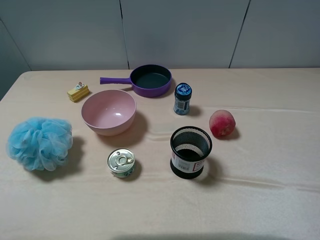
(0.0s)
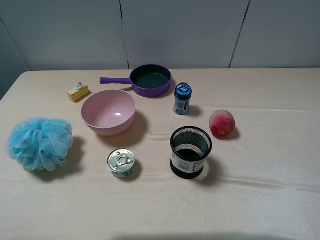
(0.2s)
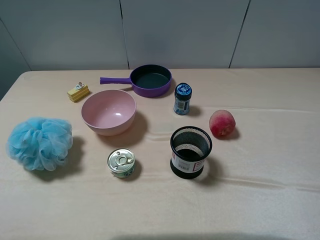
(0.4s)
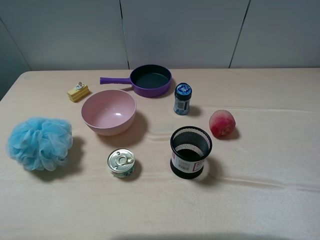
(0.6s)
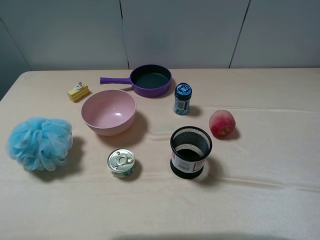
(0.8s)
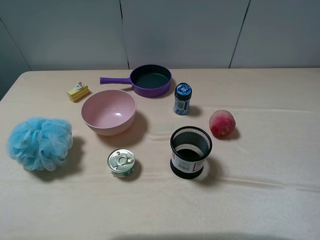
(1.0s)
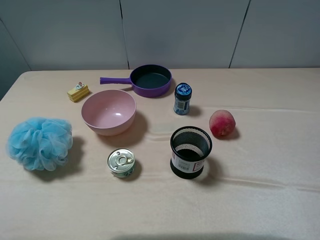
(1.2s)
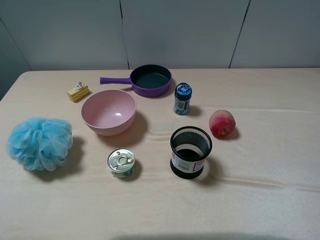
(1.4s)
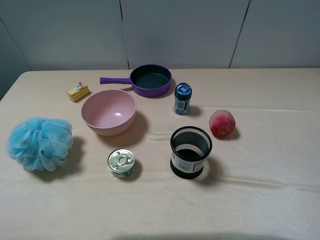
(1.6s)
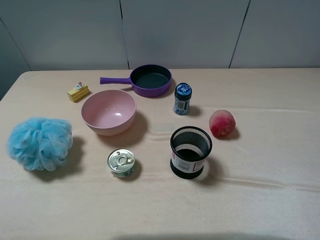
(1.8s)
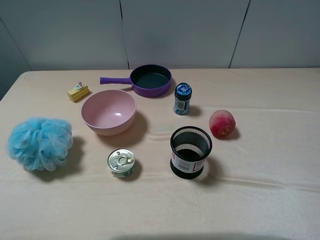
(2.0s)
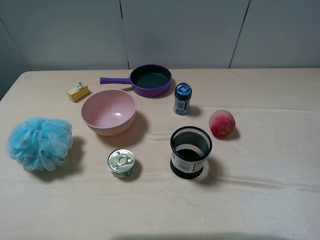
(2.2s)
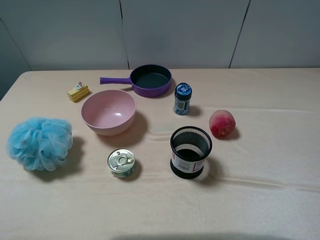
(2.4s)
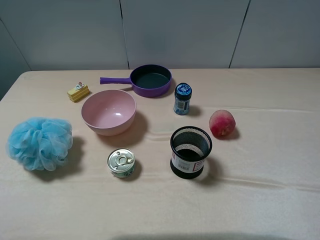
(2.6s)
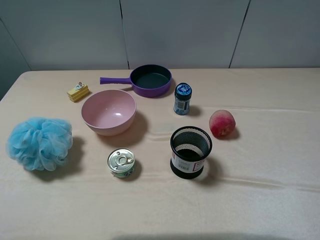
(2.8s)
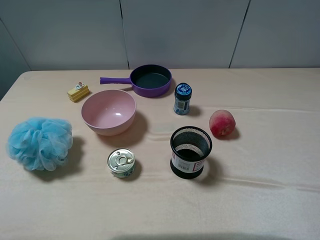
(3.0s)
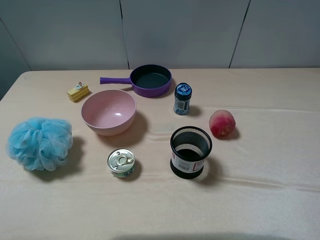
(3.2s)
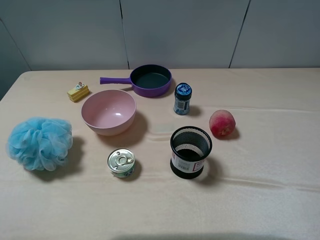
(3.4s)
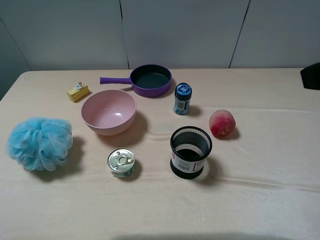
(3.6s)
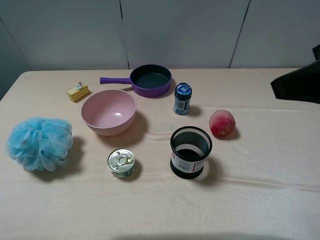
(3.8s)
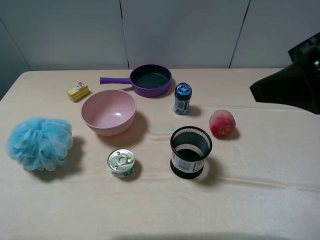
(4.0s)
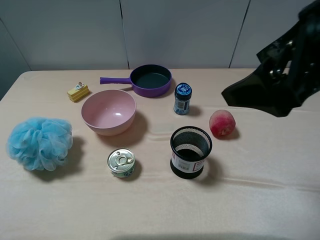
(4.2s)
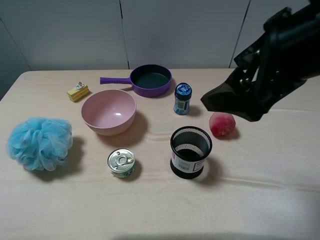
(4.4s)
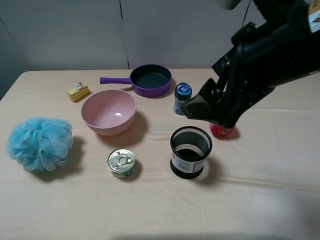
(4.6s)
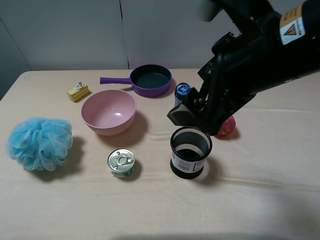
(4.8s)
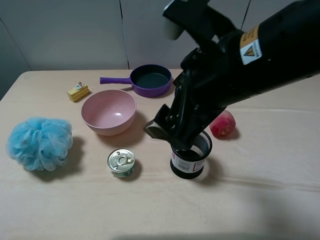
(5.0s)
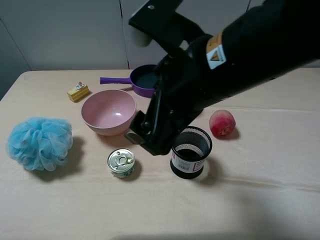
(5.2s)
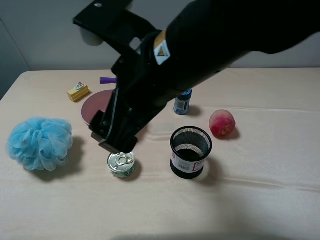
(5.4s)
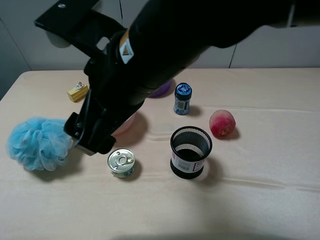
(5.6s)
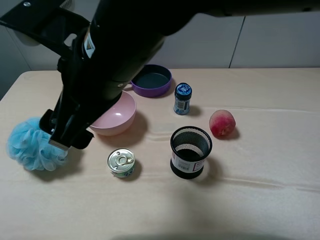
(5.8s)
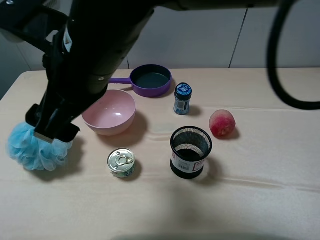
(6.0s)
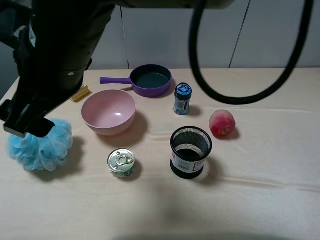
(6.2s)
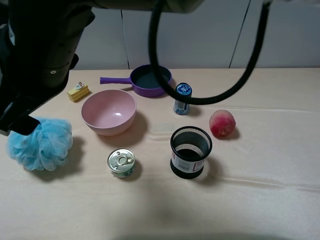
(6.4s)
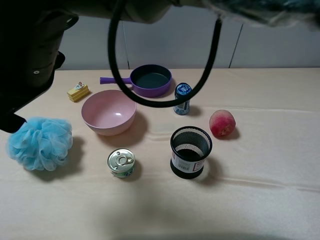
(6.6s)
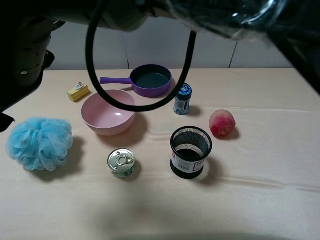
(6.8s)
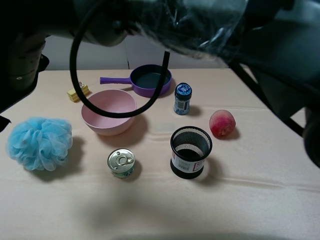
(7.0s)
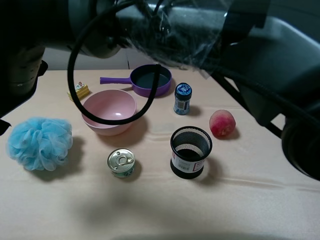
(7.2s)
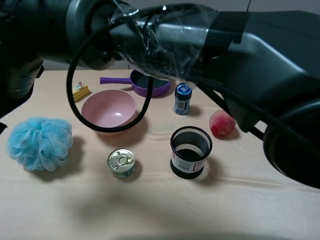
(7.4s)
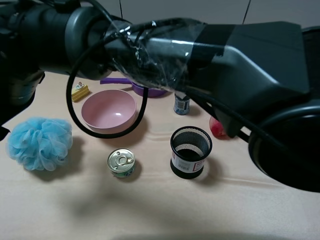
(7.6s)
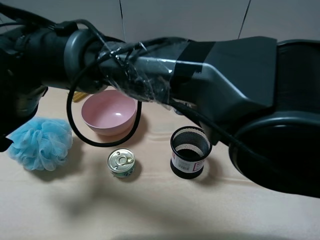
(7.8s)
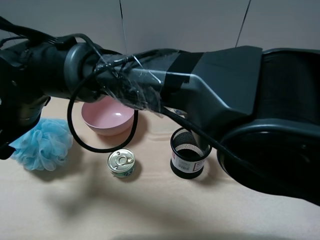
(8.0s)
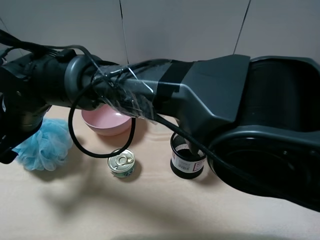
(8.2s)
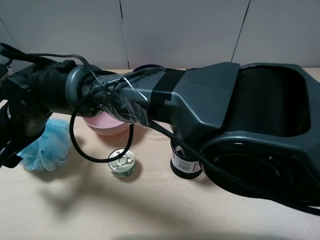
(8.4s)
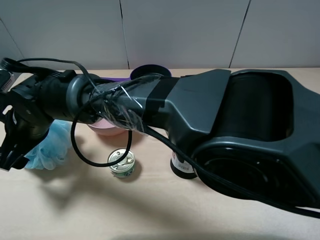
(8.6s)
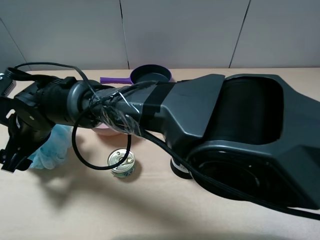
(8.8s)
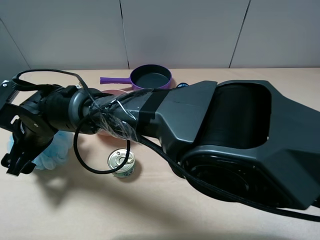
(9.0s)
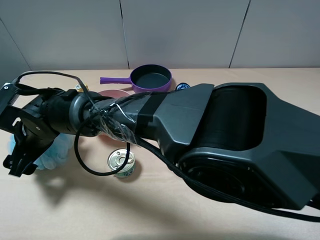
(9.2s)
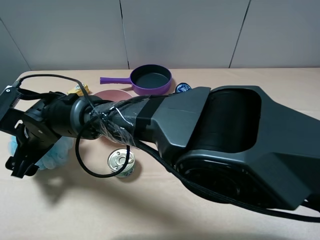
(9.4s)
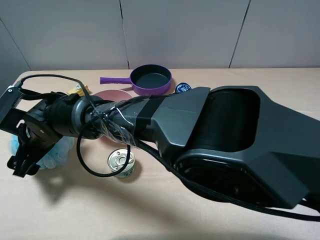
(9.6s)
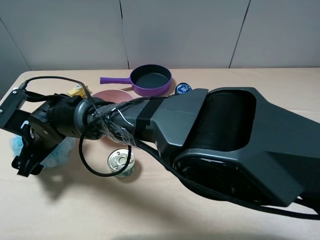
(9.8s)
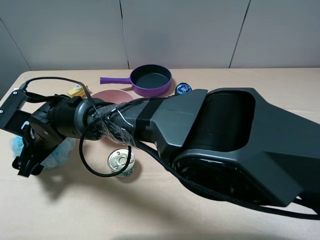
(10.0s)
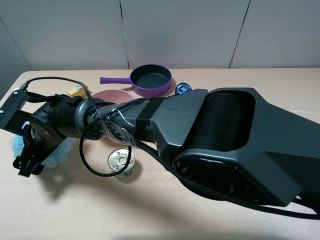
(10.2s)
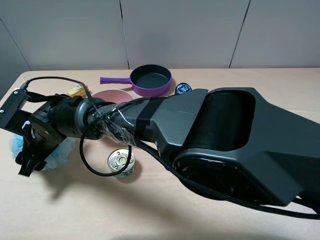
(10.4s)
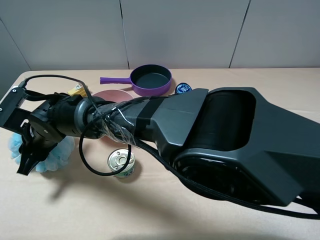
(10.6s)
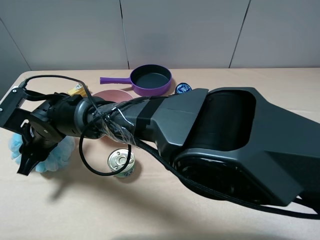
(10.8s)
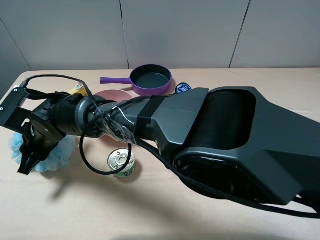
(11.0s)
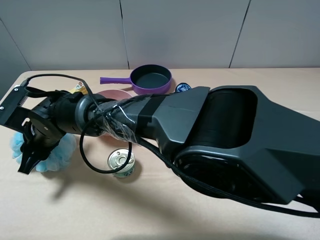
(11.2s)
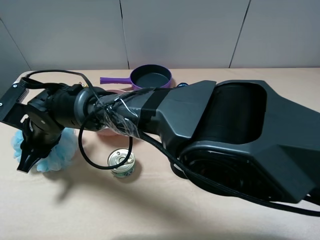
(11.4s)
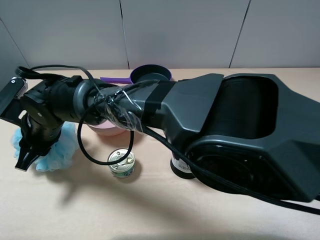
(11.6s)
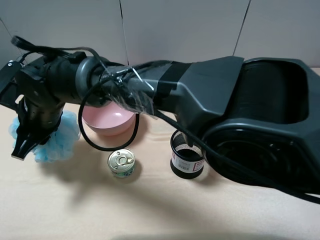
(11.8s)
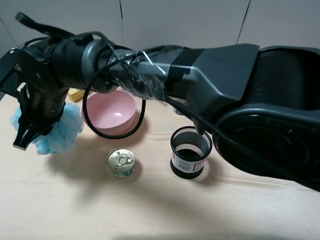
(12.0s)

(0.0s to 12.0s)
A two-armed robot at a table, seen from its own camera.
Task of the whole recording: pick up an item with a gripper and place it in a random container on the table.
Step, 0.0s - 10.8s: Grasp the shower sphere with the right gripper.
0.0s - 1.6s: The two grippers keep their place.
3.0s - 4.4s: The right gripper goes roughly 15 cm to the left and forward.
4.4s - 6.0s: The right gripper moves to the left, approximately 25 cm.
6.0s - 7.6s: The right gripper heads to the left and downward, covering some 15 cm.
7.6s - 9.0s: The right gripper travels downward by about 10 cm.
9.0s - 10.4s: The right gripper closes.
10.4s - 12.0s: The right gripper shifts some 10 cm upward, and closes up.

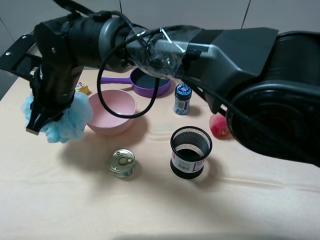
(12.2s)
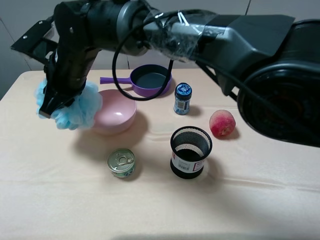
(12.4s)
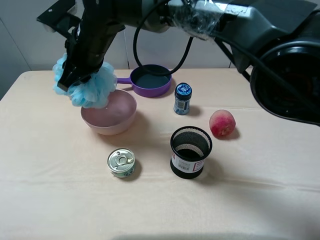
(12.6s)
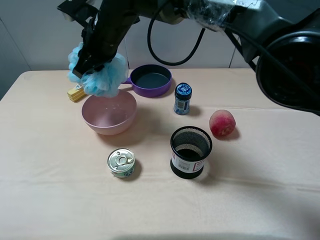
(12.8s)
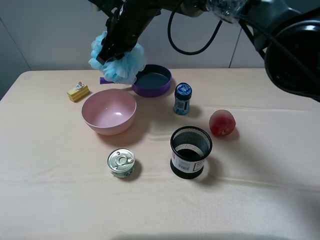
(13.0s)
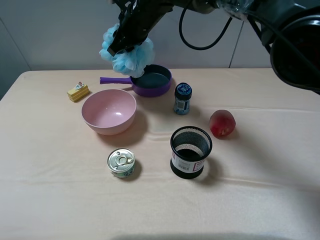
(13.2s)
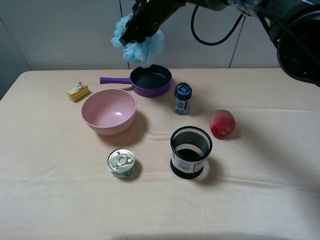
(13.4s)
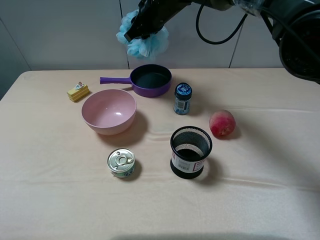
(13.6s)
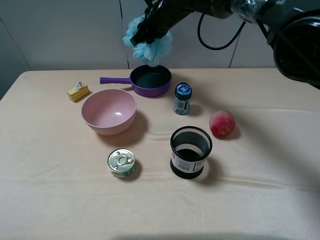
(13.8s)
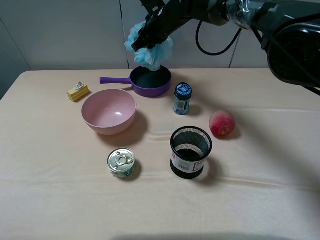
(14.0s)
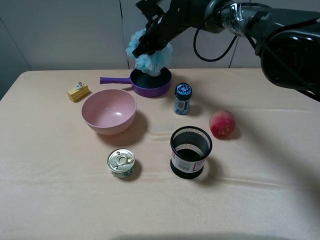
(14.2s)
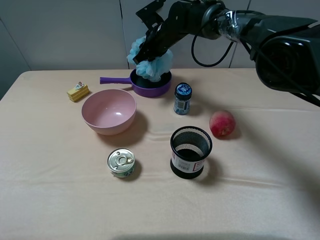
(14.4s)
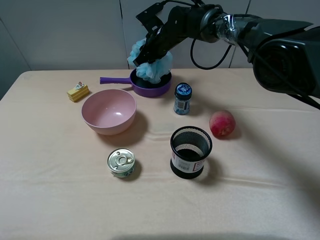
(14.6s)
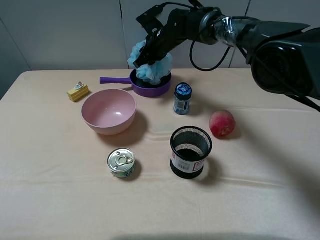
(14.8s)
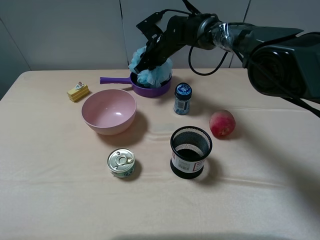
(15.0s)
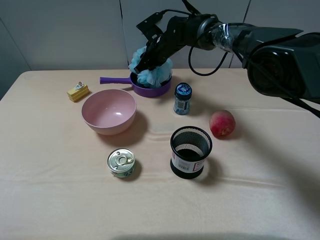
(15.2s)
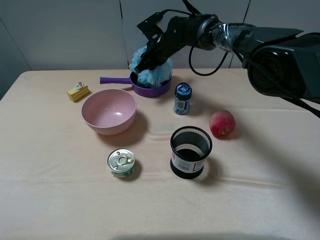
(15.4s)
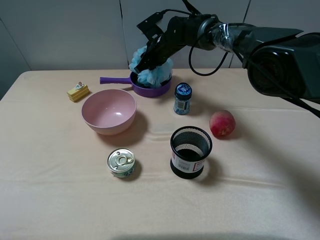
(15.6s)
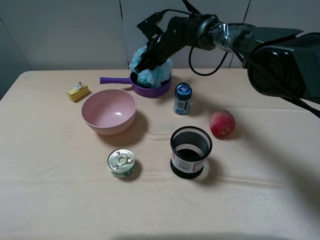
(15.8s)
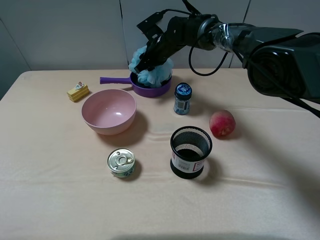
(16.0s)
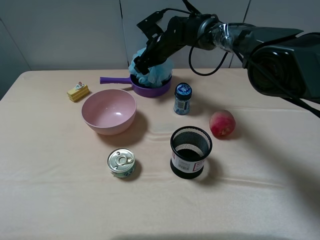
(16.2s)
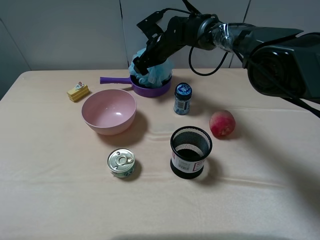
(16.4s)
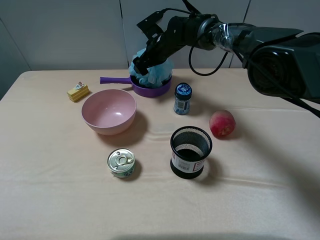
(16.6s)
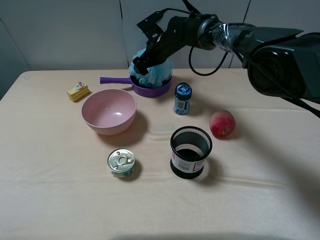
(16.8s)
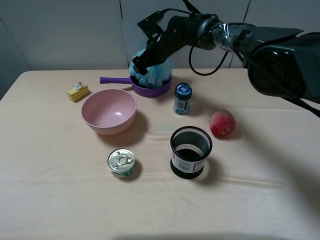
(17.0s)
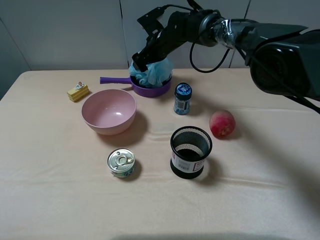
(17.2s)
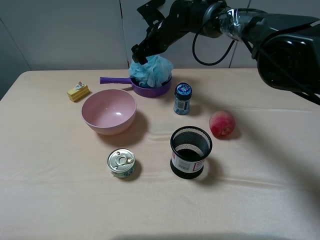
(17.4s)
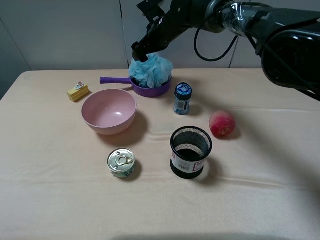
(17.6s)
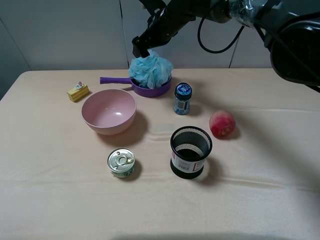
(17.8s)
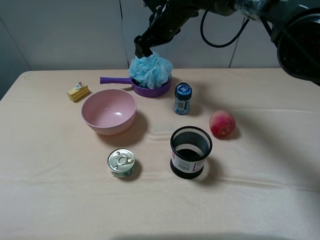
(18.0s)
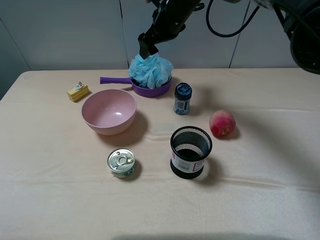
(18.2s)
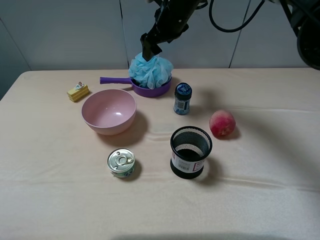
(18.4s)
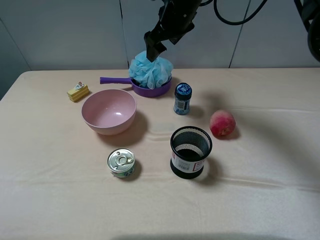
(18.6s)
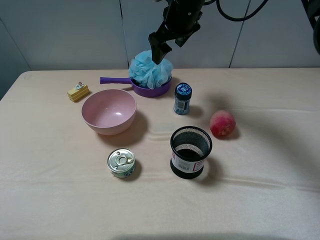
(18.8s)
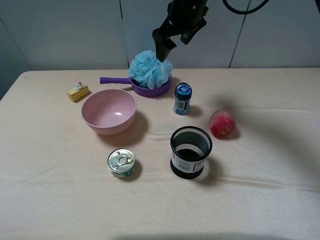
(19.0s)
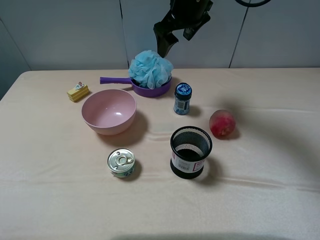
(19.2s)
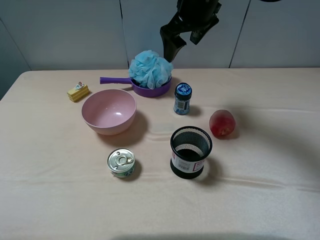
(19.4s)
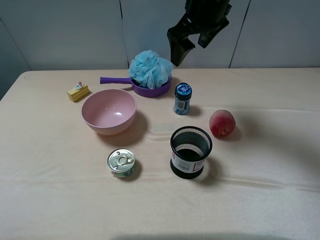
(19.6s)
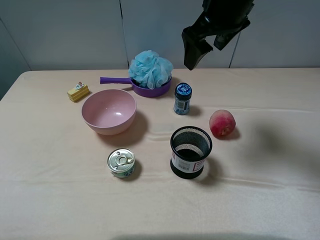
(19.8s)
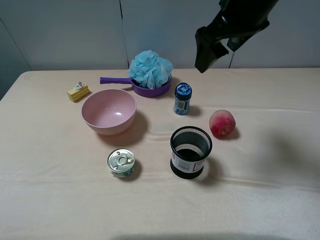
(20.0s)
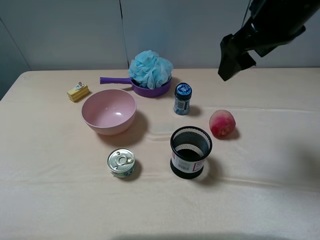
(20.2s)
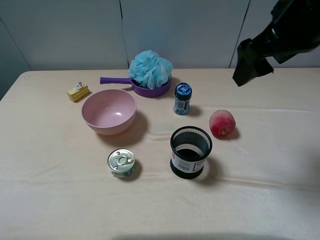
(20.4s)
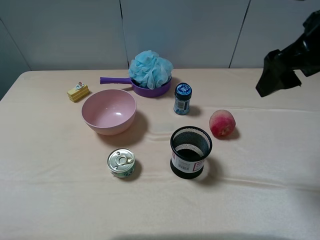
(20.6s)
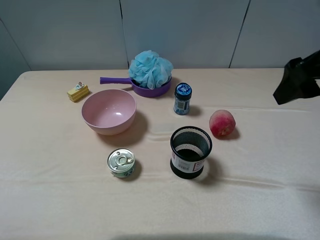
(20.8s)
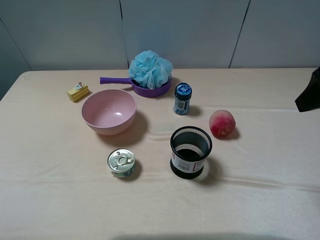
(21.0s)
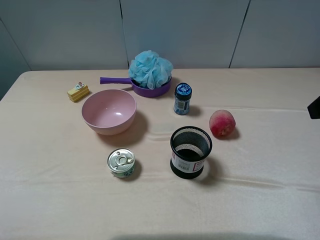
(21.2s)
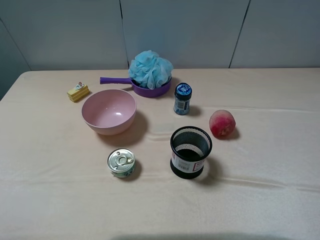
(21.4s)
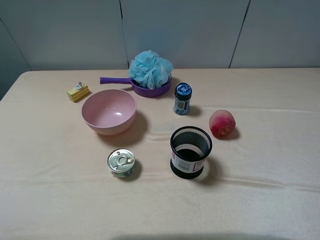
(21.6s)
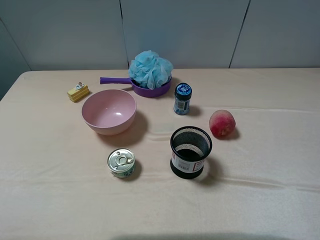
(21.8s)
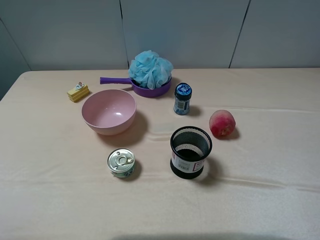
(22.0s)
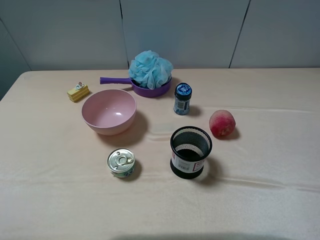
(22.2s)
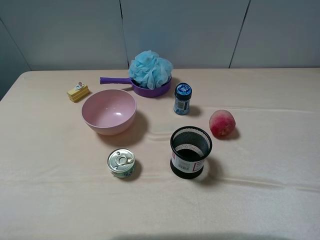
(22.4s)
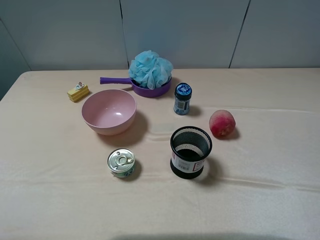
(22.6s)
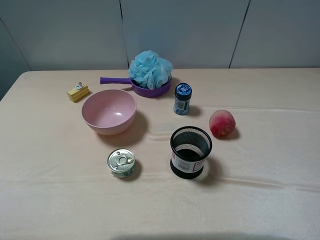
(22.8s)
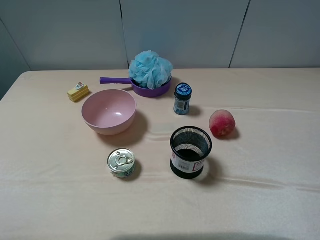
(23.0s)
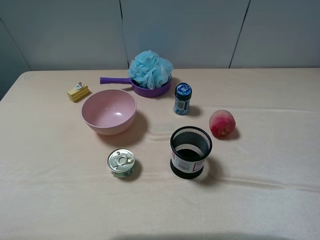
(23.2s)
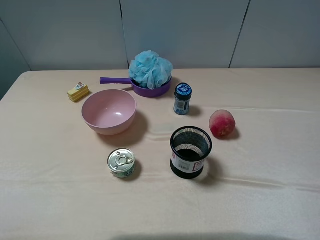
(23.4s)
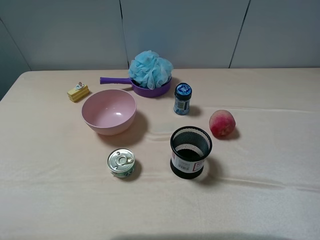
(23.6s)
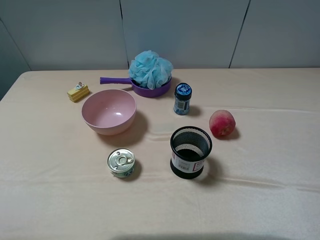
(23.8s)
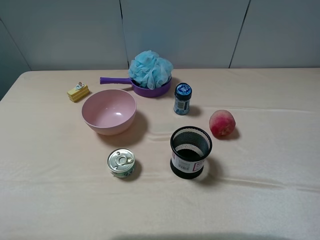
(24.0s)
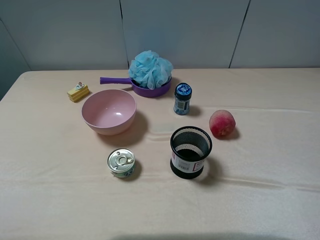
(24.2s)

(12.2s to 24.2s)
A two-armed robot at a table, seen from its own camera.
Task of the whole recording: pick up an item with a gripper and place it in a random container on the table.
Step, 12.2s - 17.2s: Place the shower sphere into the purple pot with the right gripper.
12.2s - 13.8s: The right gripper heads forward and to the right, covering approximately 30 cm.
13.8s - 15.2s: The right gripper moves downward, about 10 cm.
15.2s - 16.6s: The right gripper opens.
16.6s - 18.2s: The right gripper is displaced upward by some 10 cm.
18.2s - 19.8s: The right gripper goes approximately 15 cm backward, to the right and upward.
19.8s - 21.2s: The right gripper heads to the right and backward, covering some 25 cm.
22.6s - 24.2s: The two grippers keep their place.
